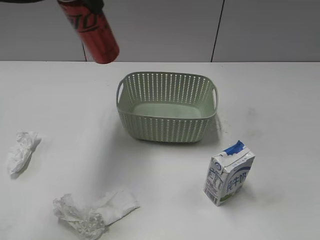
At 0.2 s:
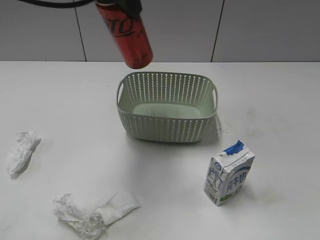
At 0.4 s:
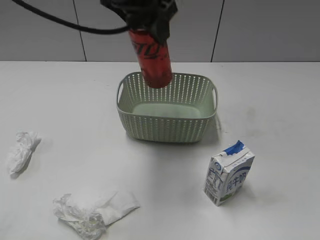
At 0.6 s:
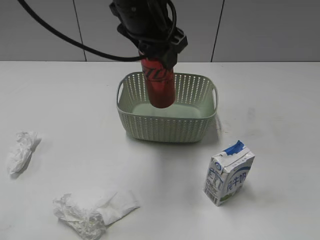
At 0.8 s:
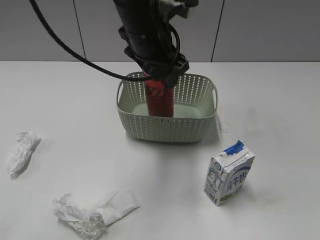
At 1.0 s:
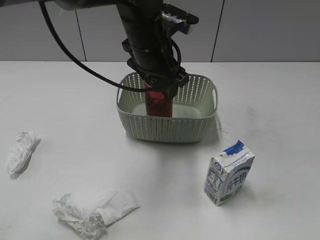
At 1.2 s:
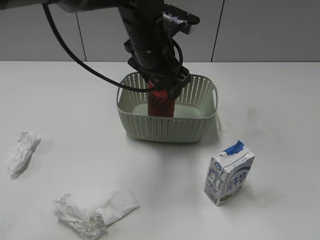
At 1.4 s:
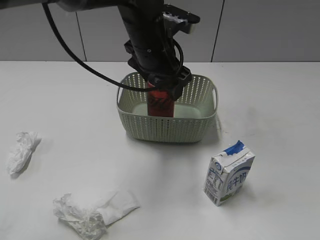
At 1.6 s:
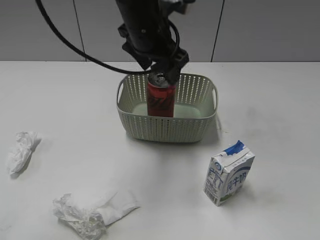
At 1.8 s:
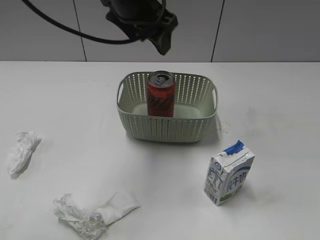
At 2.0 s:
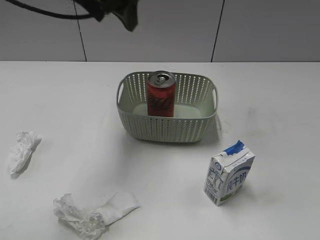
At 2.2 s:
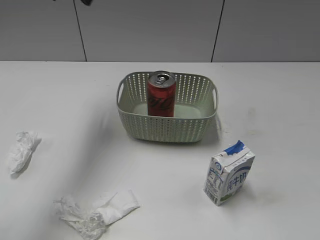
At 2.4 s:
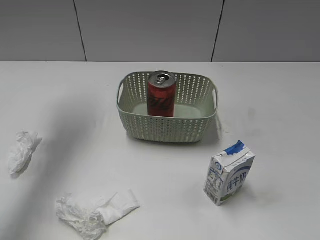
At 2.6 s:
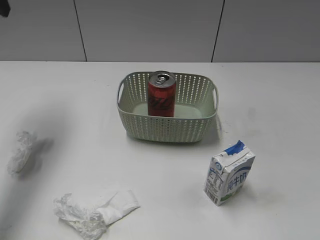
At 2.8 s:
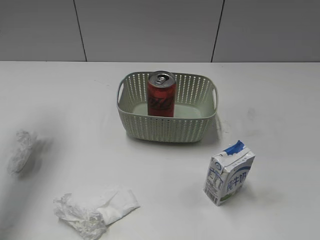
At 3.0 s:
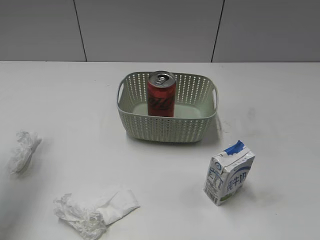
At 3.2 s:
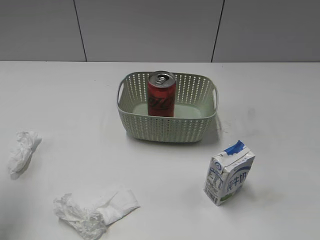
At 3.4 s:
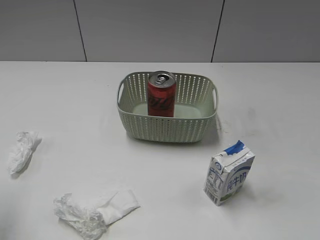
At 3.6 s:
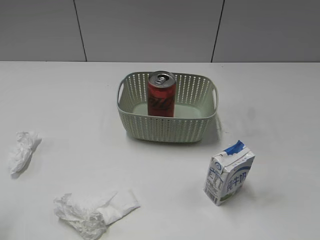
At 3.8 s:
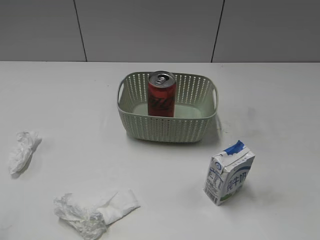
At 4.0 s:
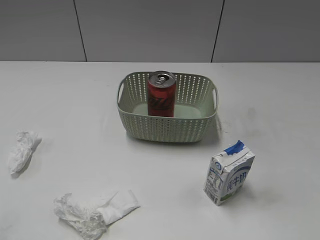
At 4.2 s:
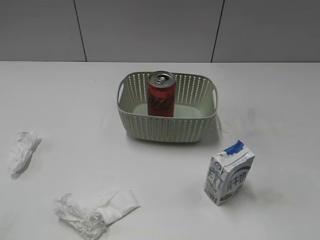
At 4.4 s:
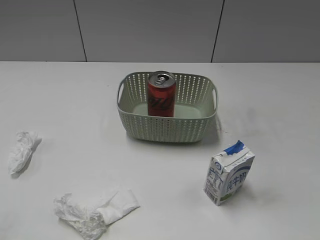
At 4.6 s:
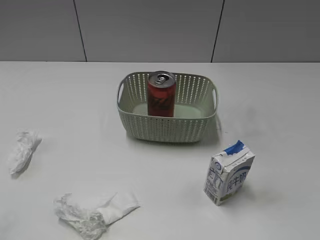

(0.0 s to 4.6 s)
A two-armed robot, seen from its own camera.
Step, 0.0 s - 1.6 s: Place the cola can in the basket with left gripper.
0.0 s - 1.6 s: The left gripper is displaced to the right and downward by about 15 cm, and opens up.
1.6 s - 3.0 s: The left gripper shifts some 30 cm to the left.
3.0 s - 4.6 s: The left gripper heads backward, covering about 25 cm.

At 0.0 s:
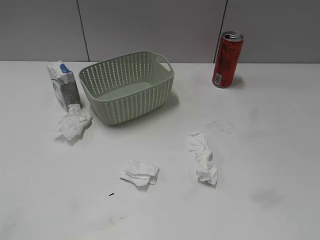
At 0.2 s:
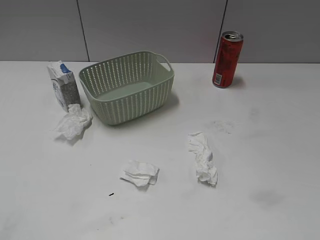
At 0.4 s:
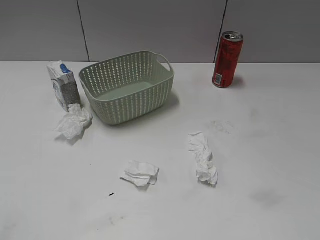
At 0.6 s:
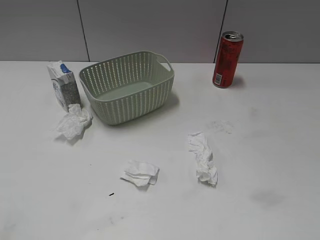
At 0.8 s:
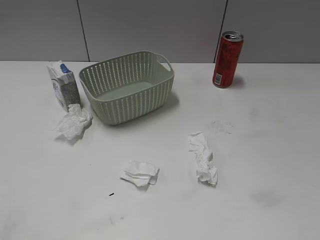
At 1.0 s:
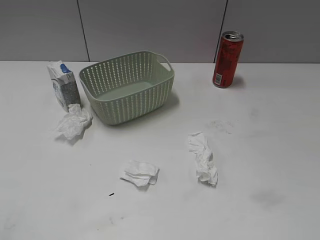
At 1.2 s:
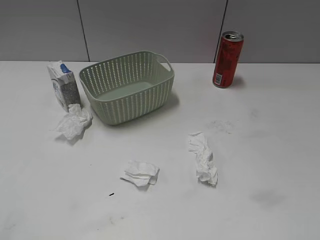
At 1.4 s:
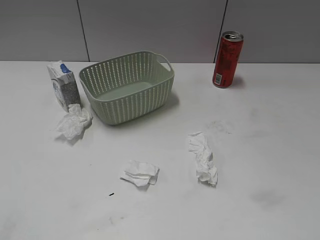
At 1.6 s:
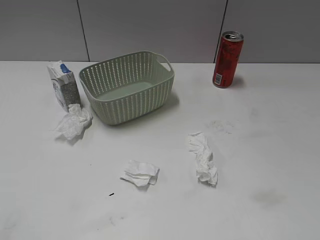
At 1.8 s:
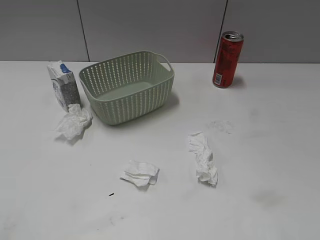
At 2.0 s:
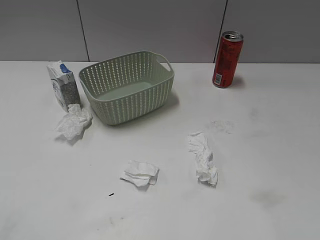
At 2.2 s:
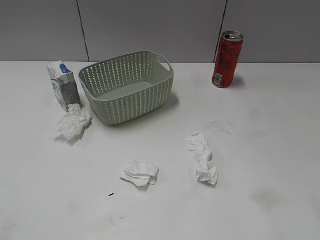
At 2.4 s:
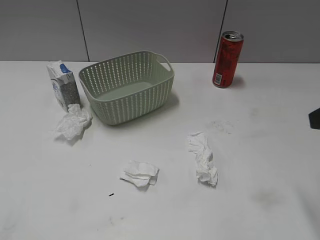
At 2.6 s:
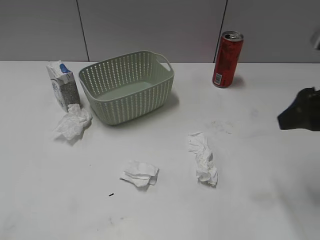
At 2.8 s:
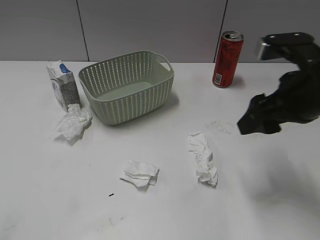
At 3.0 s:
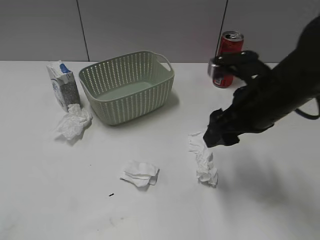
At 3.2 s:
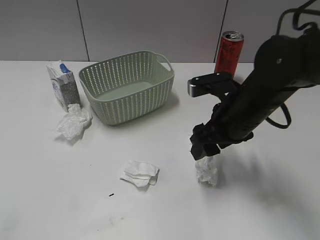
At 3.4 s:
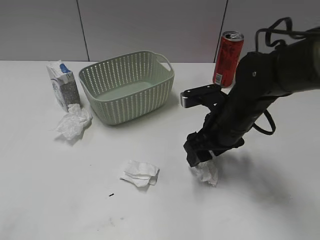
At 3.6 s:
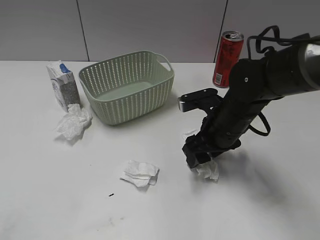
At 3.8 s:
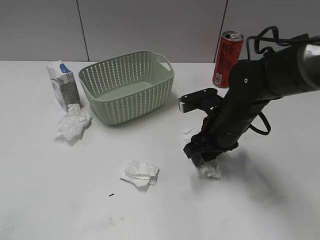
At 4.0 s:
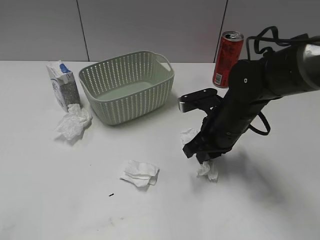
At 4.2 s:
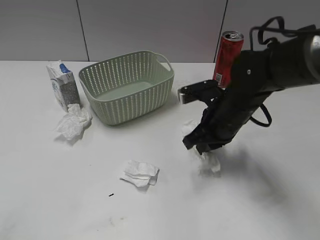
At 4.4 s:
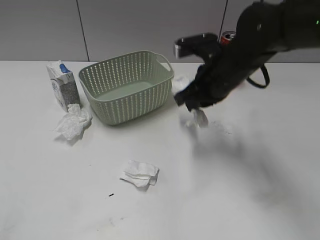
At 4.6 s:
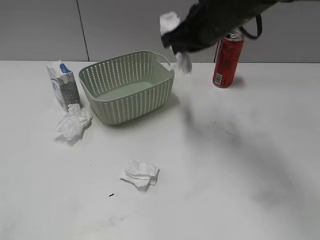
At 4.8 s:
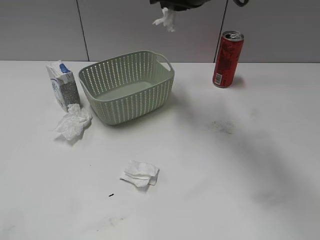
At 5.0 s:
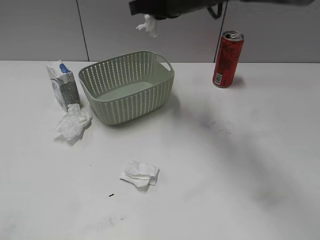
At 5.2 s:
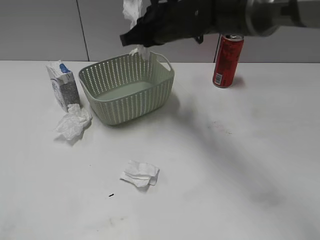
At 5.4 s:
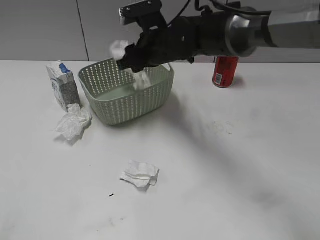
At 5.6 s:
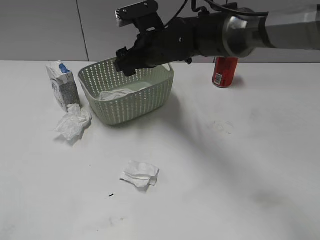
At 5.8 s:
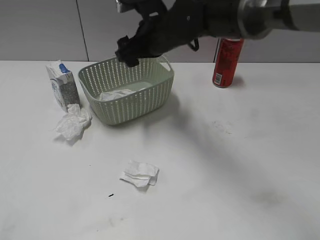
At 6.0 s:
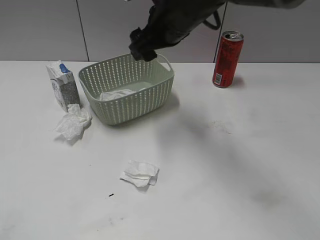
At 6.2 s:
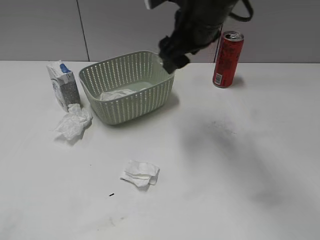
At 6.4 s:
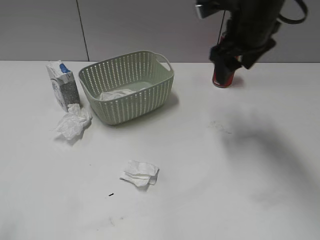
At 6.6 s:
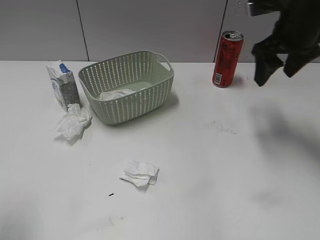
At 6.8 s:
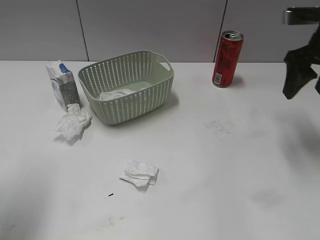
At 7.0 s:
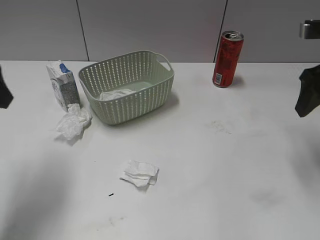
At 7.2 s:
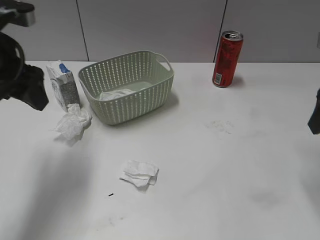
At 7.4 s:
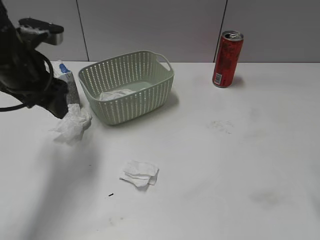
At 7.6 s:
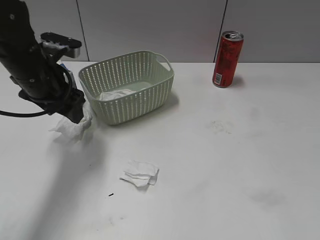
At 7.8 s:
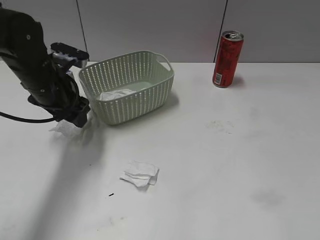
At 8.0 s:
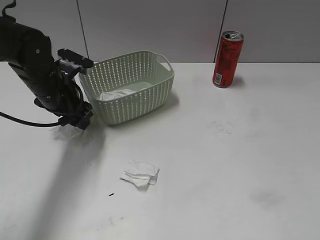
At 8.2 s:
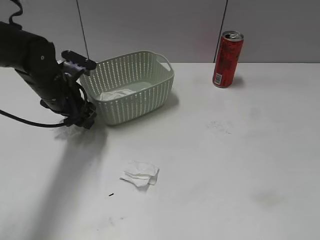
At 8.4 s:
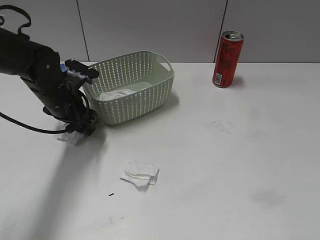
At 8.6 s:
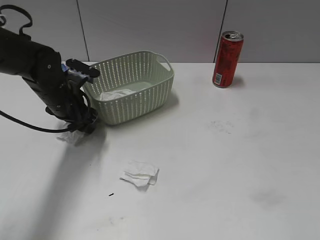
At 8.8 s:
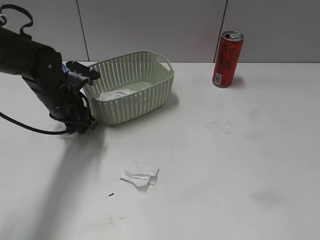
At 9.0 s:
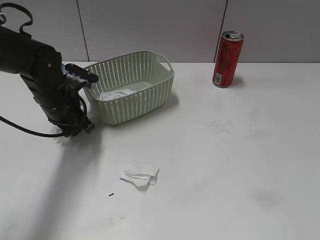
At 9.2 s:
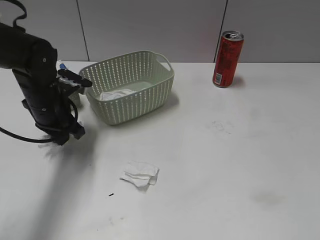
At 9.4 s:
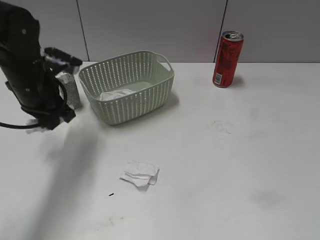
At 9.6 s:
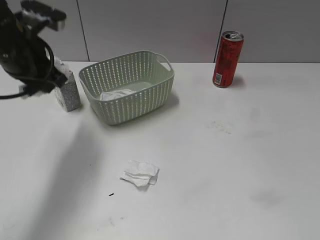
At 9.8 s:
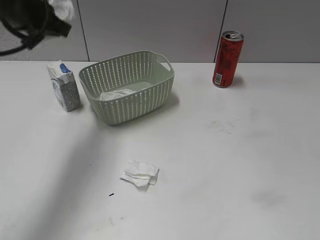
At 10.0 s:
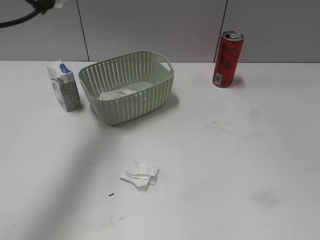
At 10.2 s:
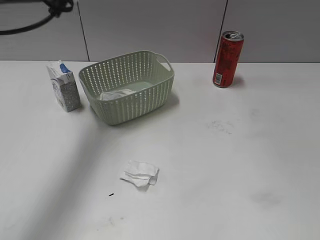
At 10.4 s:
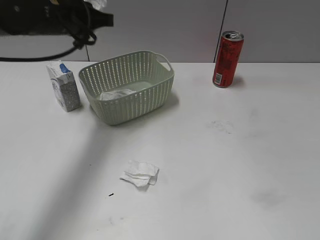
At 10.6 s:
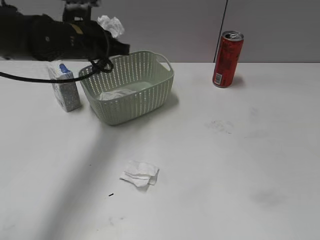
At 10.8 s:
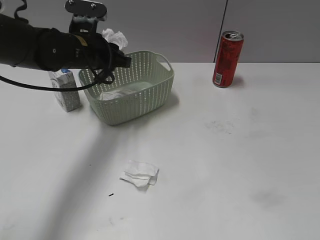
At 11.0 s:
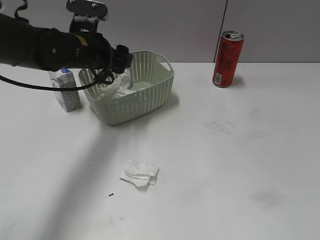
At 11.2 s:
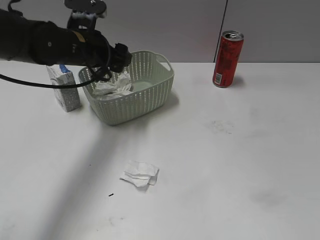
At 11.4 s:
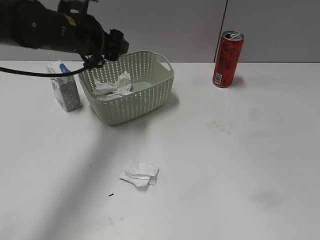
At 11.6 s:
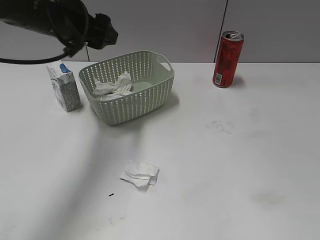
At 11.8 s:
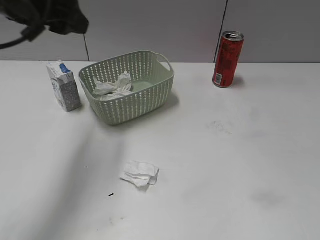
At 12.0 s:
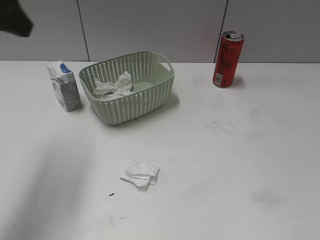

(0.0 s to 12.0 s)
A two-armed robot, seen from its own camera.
Step, 1.2 s - 4.0 s: Grasp the waste paper with right gripper.
Step, 4.2 s - 5.6 s: Place the waste paper in the basket with right gripper.
Step, 5.8 s - 9.0 s: Grasp the waste paper with left gripper.
Step, 9.2 s - 11.2 s: Place the waste paper in the basket with left gripper.
1.6 s - 3.0 s: The right gripper is displaced forward, to the left and downward by approximately 30 cm.
3.0 s - 4.4 s: The right gripper heads forward, covering about 5 cm, reaches approximately 10 cm downward, then returns, and closes.
4.4 s - 6.0 s: The right gripper swings up and down, about 15 cm each way, with 2 reversals, and opens its fingers.
6.0 s - 7.6 s: The right gripper heads to the right and backward, covering some 35 cm. Meanwhile the left gripper shifts approximately 35 cm forward and to the right.
7.6 s - 9.0 s: The left gripper moves downward, approximately 5 cm, and closes.
9.0 s - 10.4 s: The left gripper heads upward, covering some 10 cm.
10.4 s - 12.0 s: The left gripper shifts about 20 cm backward, upward and to the left, and opens its fingers.

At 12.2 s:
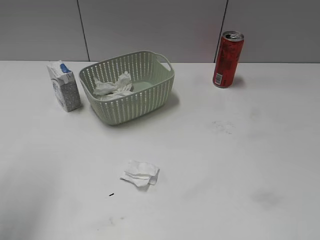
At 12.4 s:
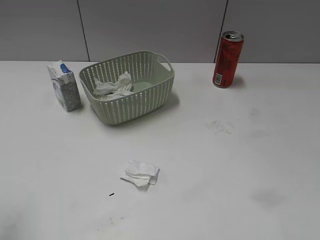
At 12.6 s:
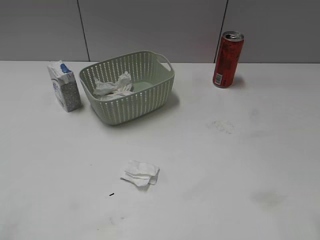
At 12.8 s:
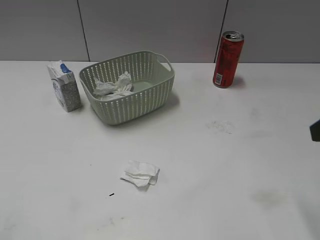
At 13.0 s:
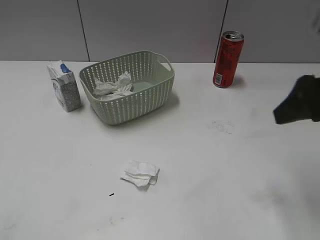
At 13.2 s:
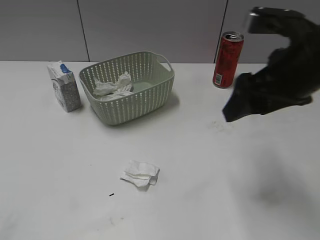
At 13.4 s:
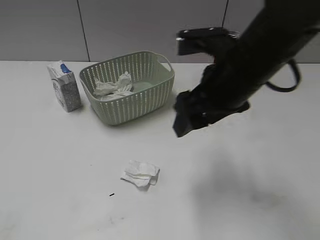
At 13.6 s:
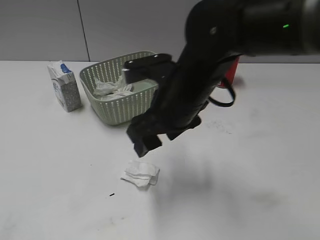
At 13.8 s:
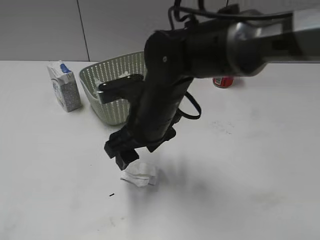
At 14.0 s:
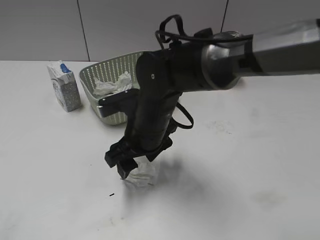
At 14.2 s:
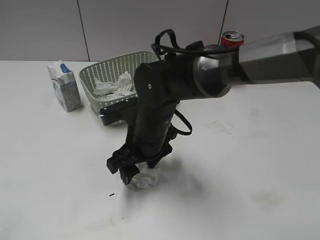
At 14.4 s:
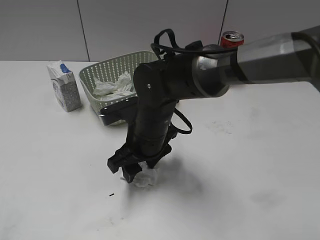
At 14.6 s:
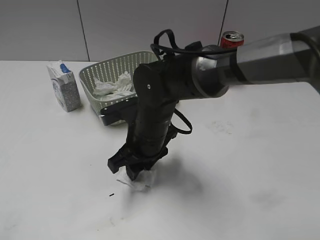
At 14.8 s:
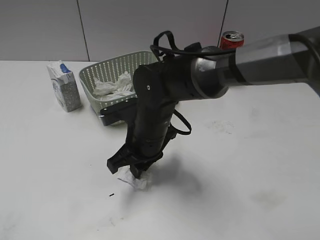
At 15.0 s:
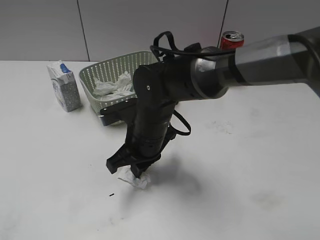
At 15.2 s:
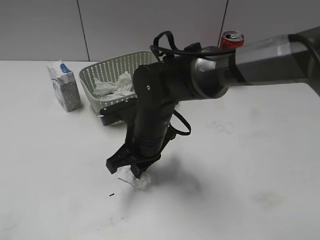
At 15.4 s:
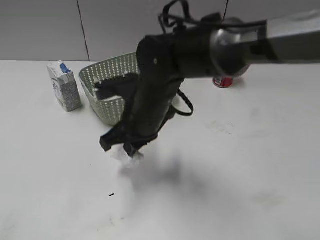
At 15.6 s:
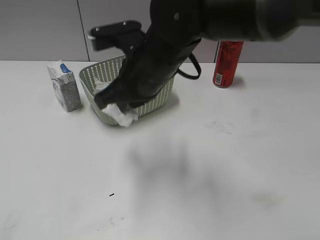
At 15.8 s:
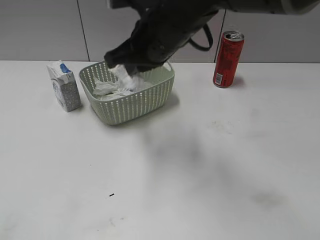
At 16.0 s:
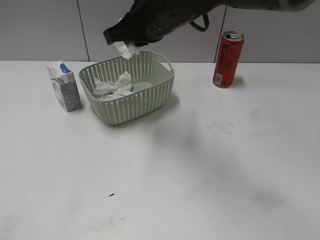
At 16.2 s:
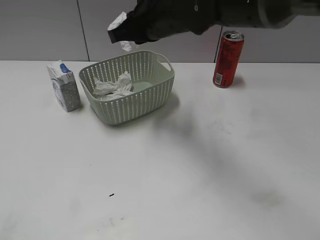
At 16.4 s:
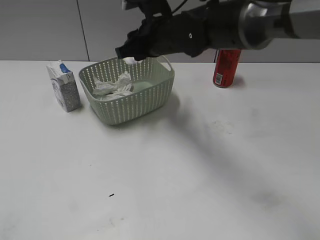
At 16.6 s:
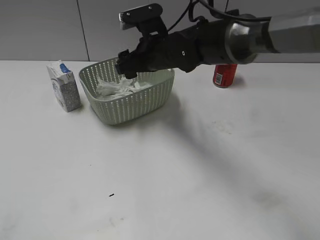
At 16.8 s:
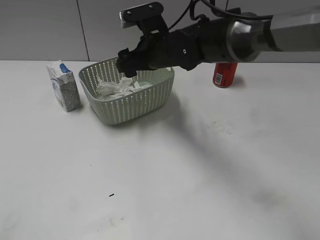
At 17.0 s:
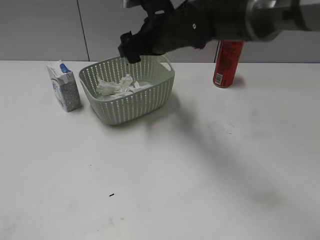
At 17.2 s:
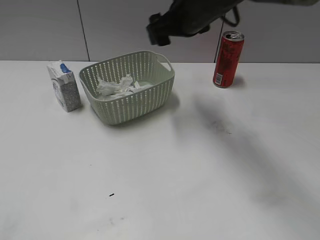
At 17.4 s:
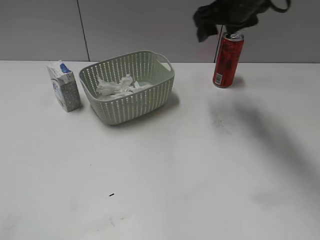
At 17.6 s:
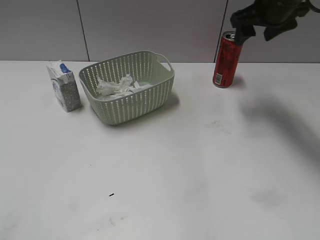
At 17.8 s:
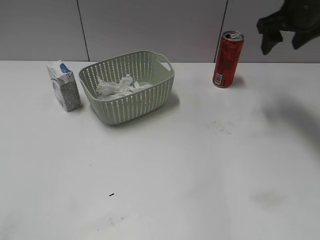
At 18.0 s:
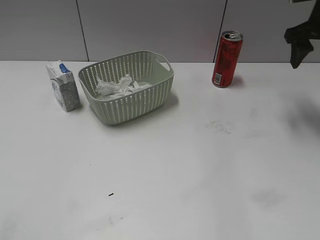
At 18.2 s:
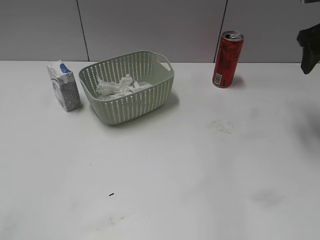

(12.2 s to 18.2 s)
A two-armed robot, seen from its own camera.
Step, 12.2 s - 15.0 s: Grasp the waste paper with right gripper.
Step, 15.2 s - 16.6 s: Place the waste paper in the basket with right gripper.
12.2 s - 13.8 s: The right gripper moves to the left, forward and downward, approximately 40 cm; the left gripper goes some 20 cm backward and downward.
13.8 s - 15.2 s: The right gripper closes.
15.2 s - 16.6 s: The right gripper moves forward and upward, some 15 cm, and opens its fingers.
16.6 s - 18.2 s: The right gripper moves to the right and upward, roughly 30 cm.
